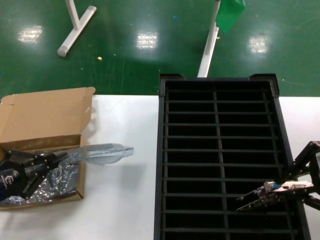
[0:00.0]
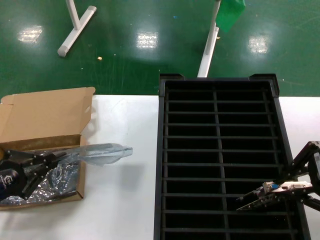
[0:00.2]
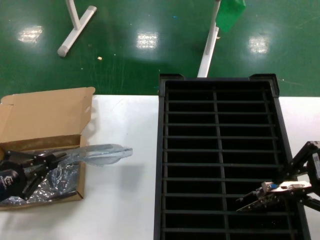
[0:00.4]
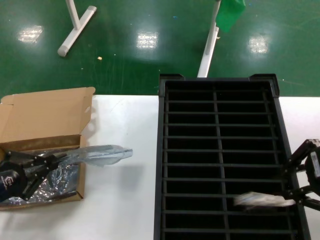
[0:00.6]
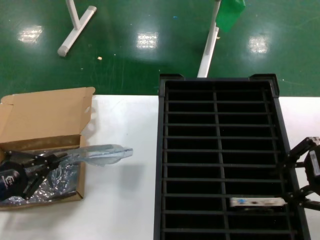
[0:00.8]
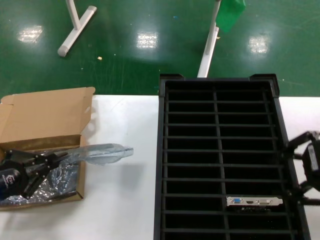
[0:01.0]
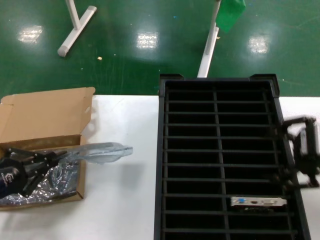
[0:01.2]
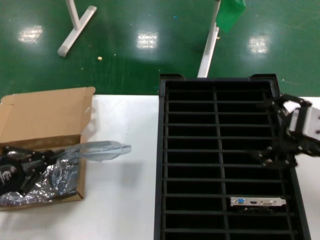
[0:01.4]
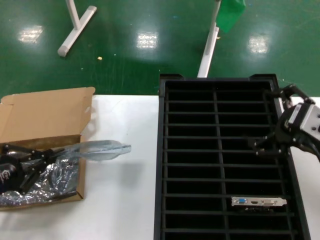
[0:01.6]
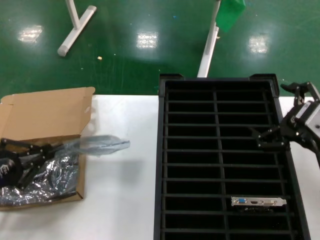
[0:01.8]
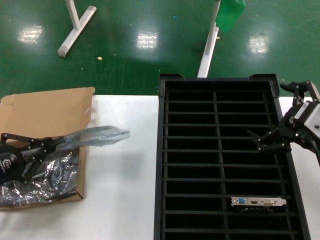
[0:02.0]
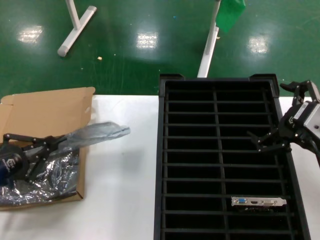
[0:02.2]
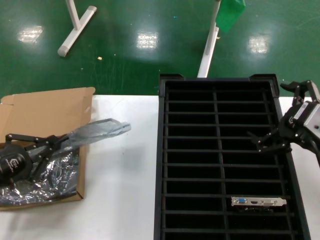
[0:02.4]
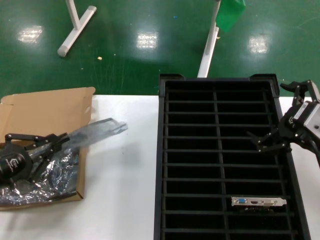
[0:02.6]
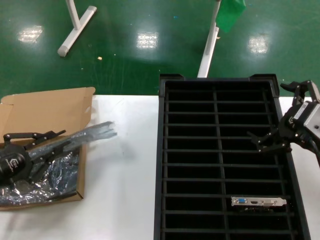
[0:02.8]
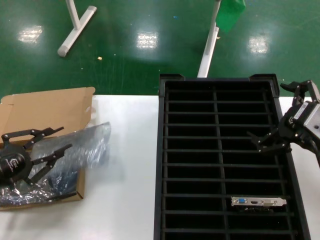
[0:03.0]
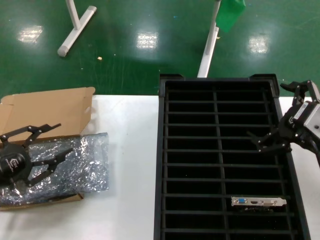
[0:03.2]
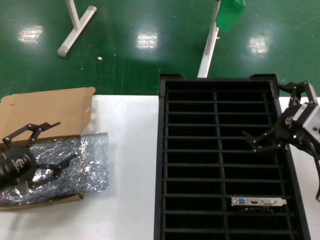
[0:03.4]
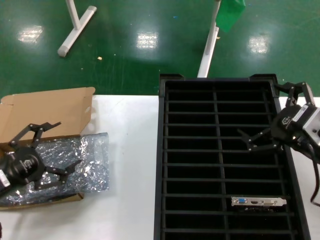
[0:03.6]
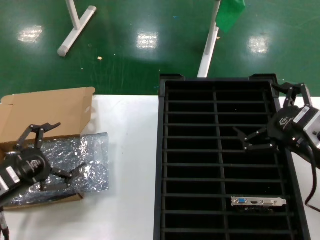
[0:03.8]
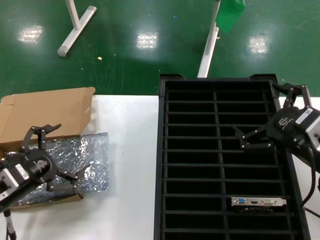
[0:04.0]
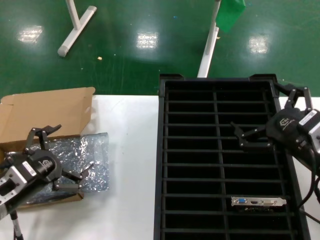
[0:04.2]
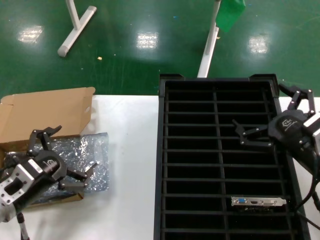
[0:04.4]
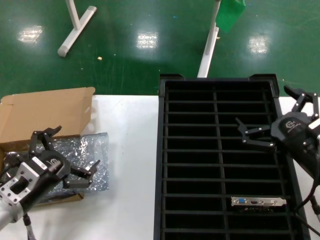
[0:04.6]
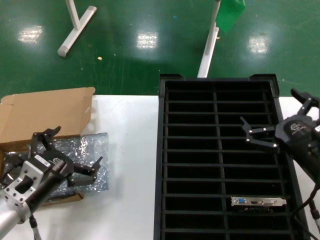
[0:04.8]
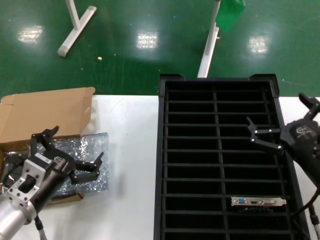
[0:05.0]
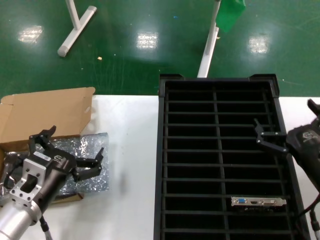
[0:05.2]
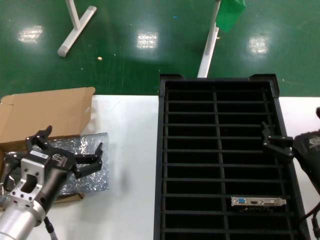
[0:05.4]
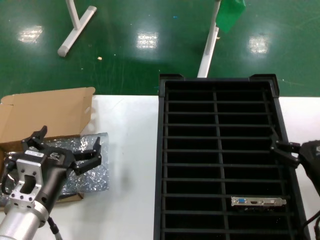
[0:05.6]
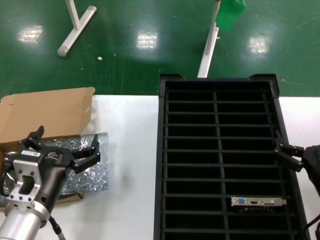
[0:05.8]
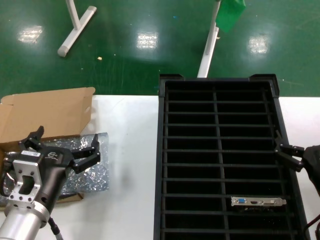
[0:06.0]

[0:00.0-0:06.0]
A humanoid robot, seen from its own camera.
Task of the whole recording: take out graphics card from box remove packaging put into black container.
Step, 0:01.0 to 0:03.2: Place the down the bag.
0:00.0 to 0:01.6: The right hand travels downward by roughly 10 cm.
0:01.6 to 0:03.0: There are only small adjustments of the hands.
0:03.0 to 0:04.4: The right hand is displaced downward by approximately 5 cm. Meanwhile the left hand goes approximately 10 cm to the right.
0:04.4 to 0:06.0: The left hand heads to the right, covering roughly 10 cm; the right hand travels downward by approximately 10 cm.
